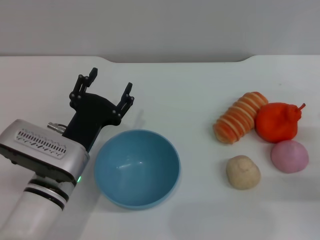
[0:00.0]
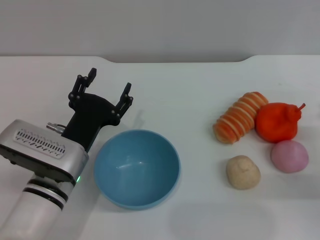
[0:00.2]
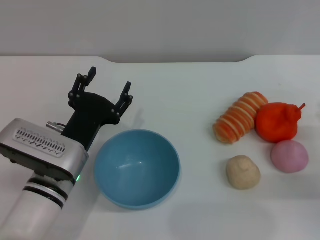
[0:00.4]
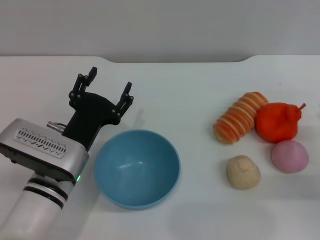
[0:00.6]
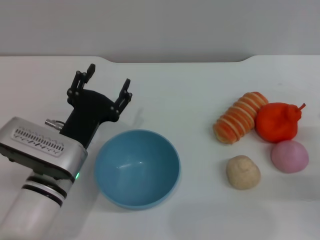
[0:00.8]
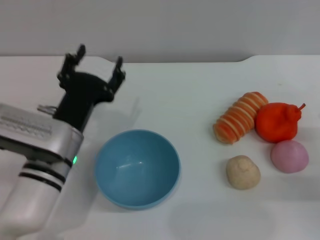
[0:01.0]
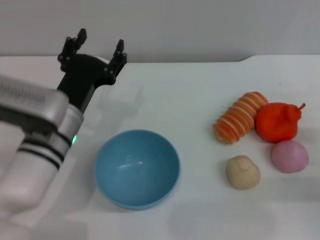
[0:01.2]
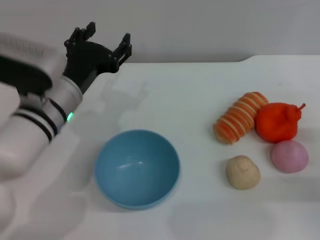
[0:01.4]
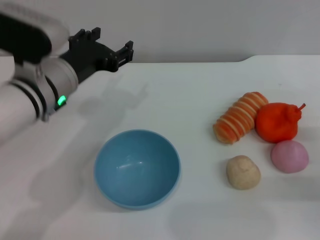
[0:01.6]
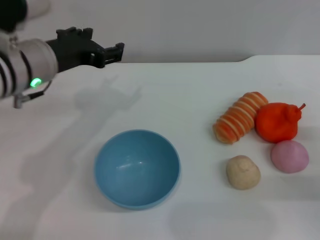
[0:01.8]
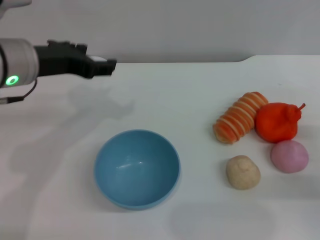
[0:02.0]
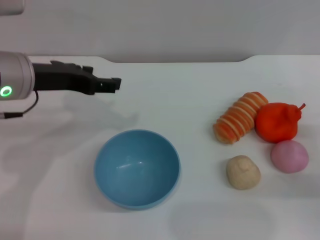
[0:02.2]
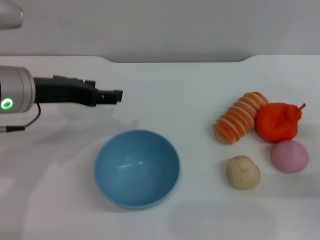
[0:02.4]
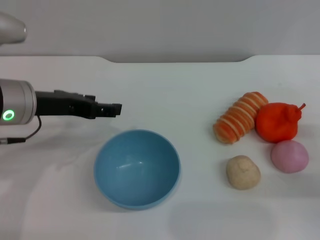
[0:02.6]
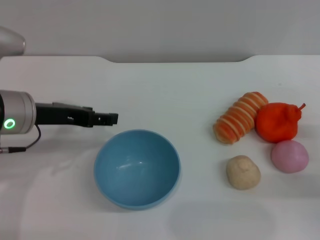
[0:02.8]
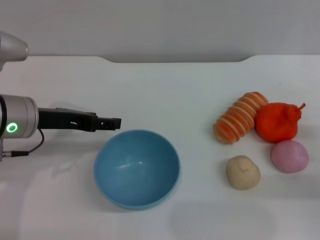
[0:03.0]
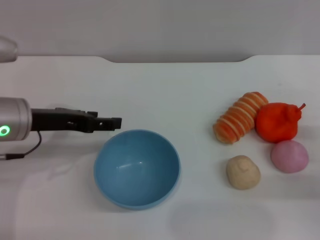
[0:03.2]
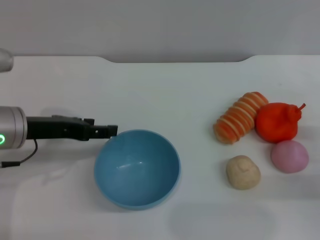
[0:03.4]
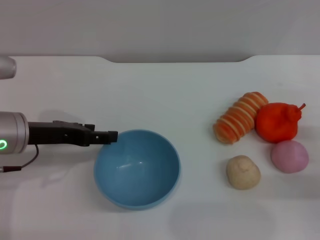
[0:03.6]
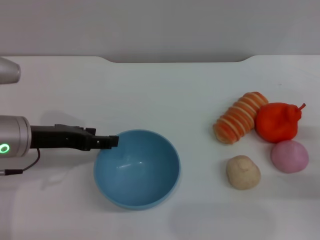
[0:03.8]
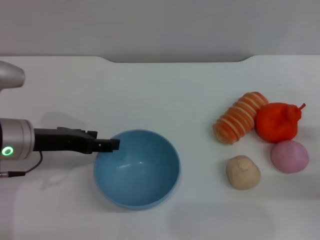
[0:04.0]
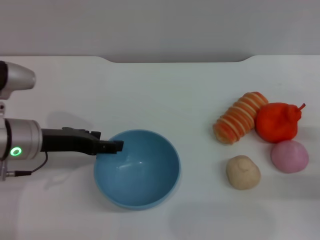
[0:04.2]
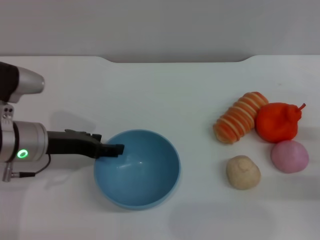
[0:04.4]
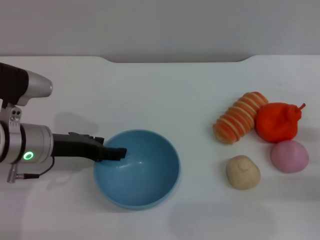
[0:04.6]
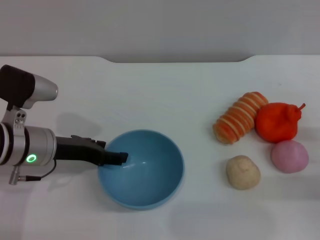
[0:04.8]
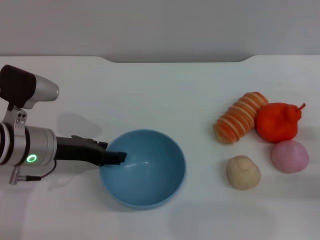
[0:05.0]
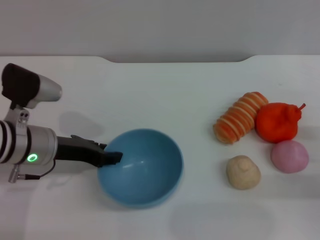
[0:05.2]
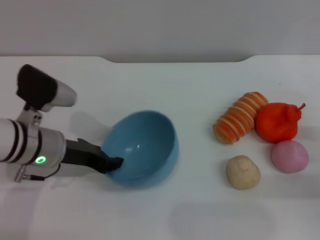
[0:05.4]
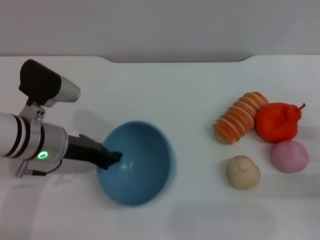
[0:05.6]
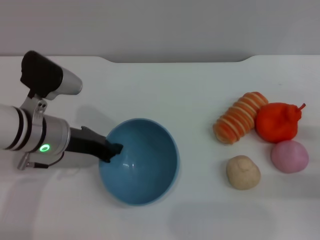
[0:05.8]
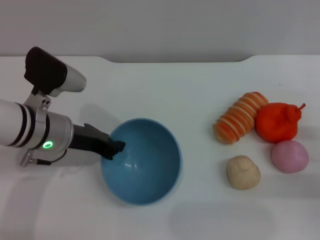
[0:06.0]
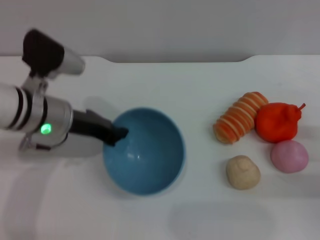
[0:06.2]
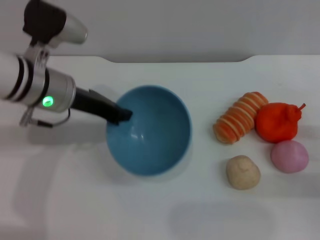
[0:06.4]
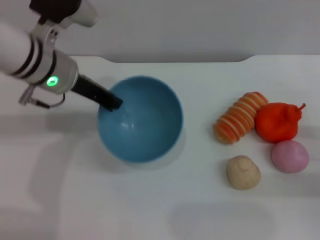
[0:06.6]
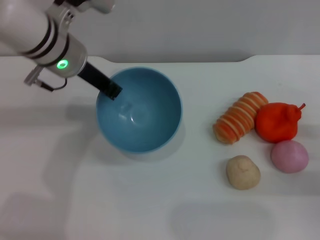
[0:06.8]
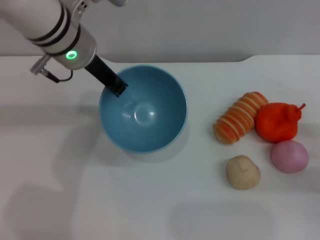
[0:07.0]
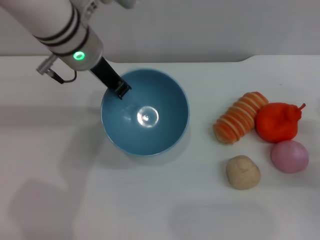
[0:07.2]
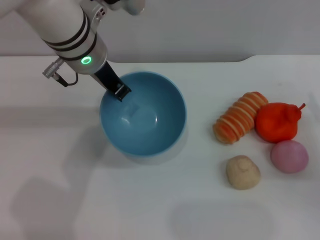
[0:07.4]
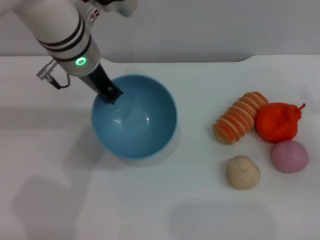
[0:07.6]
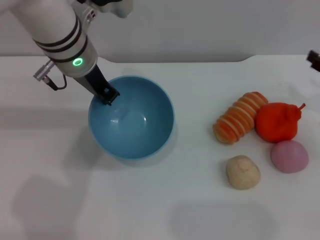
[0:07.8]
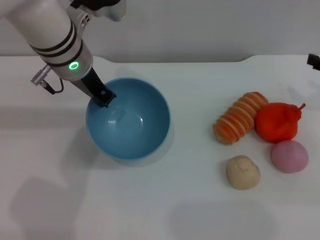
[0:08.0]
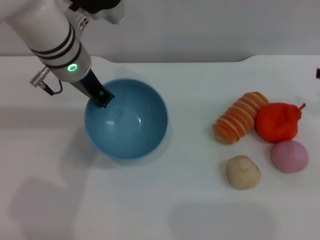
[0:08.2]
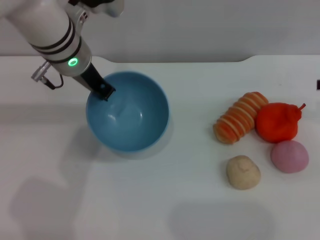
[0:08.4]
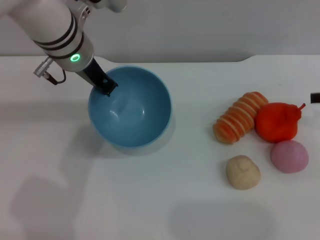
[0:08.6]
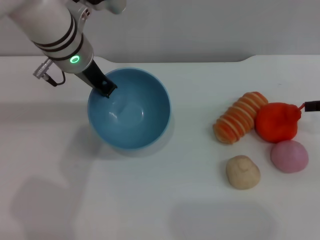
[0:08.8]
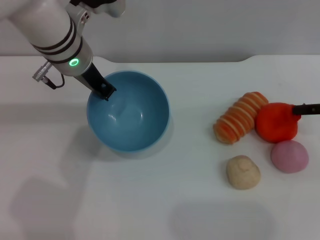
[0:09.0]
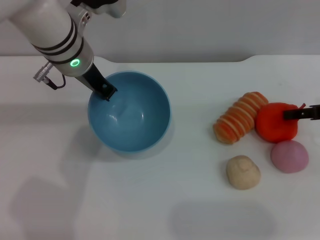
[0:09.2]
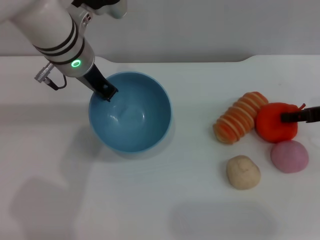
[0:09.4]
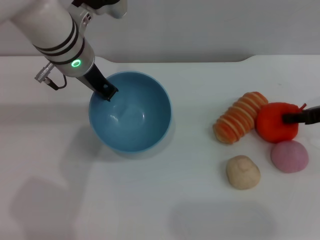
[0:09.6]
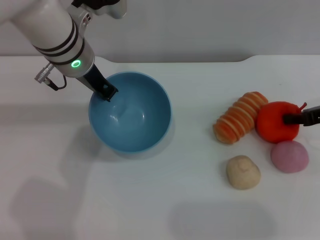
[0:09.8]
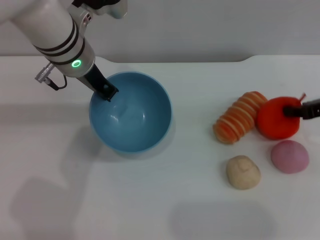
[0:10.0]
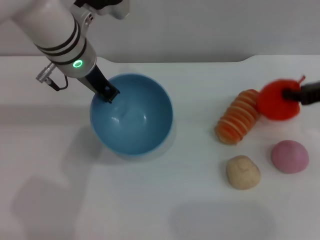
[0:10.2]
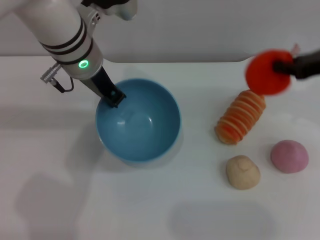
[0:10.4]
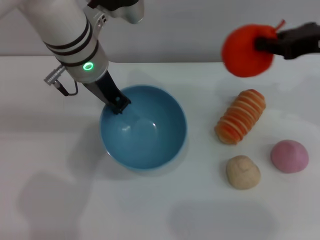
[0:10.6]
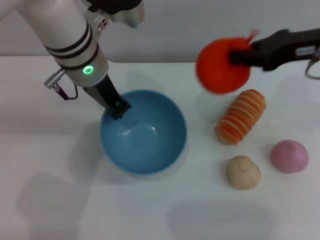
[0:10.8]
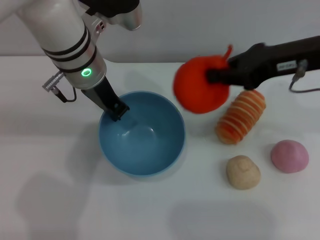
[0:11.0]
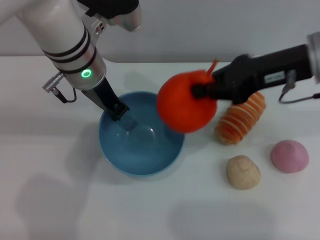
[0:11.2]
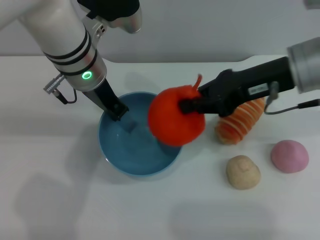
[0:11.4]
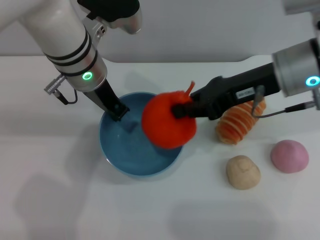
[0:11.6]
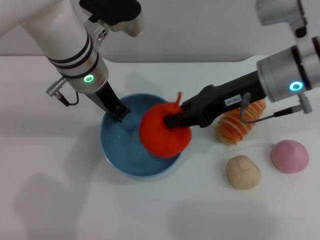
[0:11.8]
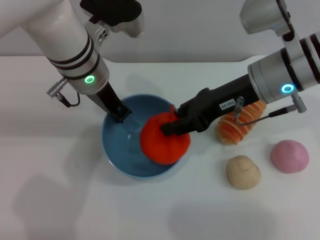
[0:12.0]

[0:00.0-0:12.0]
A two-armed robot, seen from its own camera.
Task of the whole recording: put the orange into the blue bowl and pour it out repeatedly.
Step, 0.0 to 6.8 s: Pick up the bowl with the left gripper.
Step, 7.0 to 10.2 s: Pick up the orange with the right gripper.
0.0 to 1.6 s: The left gripper heads upward and forward, covering some 15 cm.
1.6 to 3.0 s: The left gripper is displaced to the left by roughly 5 cm.
3.0 to 4.4 s: The grippers stay close to where they were, moving slightly.
4.4 to 6.0 s: The left gripper closes its fingers.
6.0 to 7.6 s: The left gripper is displaced upward, to the right and forward by roughly 15 cm, while the right gripper travels forward by some 5 cm.
7.6 to 9.0 s: The right gripper goes some 5 cm upward.
9.0 to 10.4 s: The right gripper moves upward and to the left, approximately 5 cm, and closes.
10.4 to 12.0 s: The right gripper goes roughly 15 cm to the left.

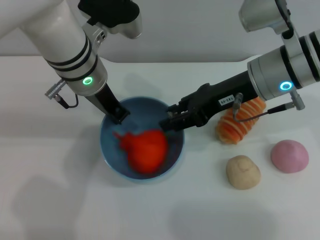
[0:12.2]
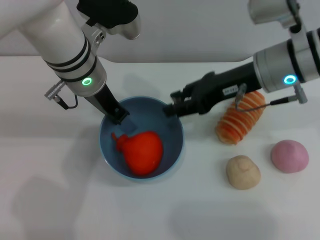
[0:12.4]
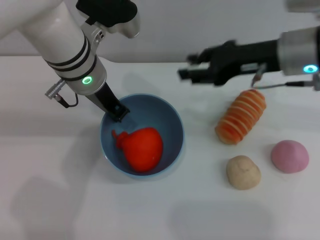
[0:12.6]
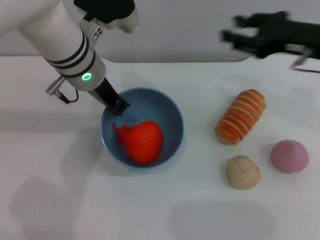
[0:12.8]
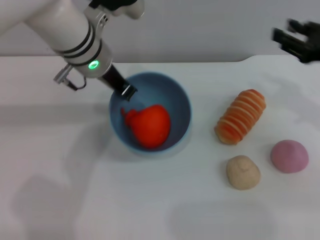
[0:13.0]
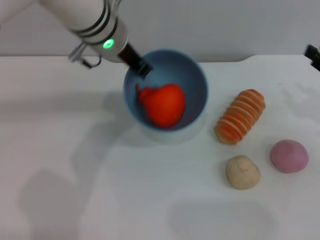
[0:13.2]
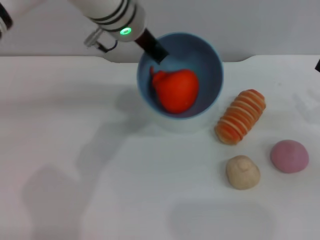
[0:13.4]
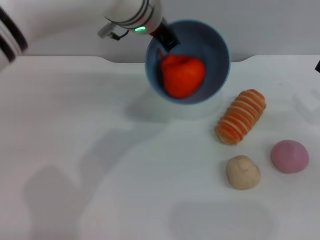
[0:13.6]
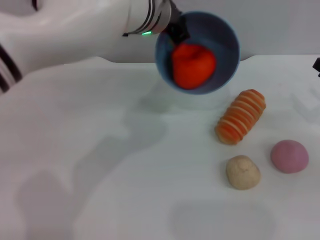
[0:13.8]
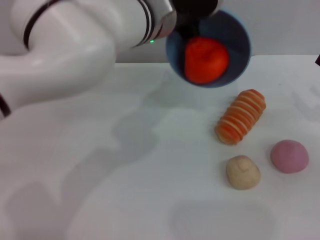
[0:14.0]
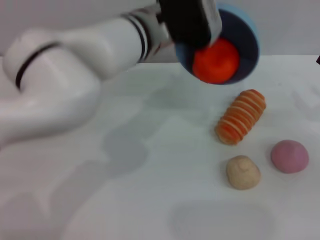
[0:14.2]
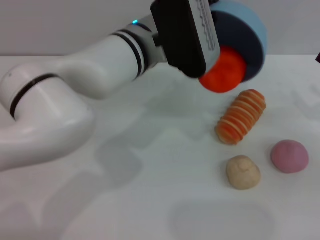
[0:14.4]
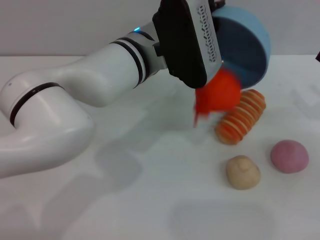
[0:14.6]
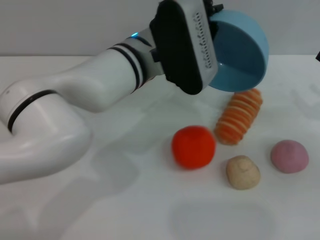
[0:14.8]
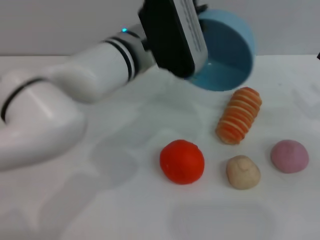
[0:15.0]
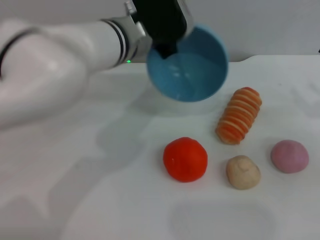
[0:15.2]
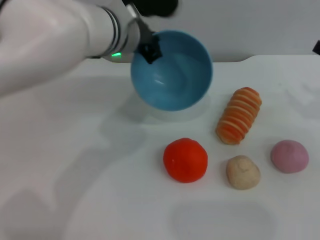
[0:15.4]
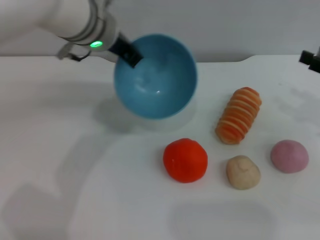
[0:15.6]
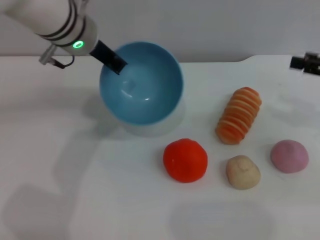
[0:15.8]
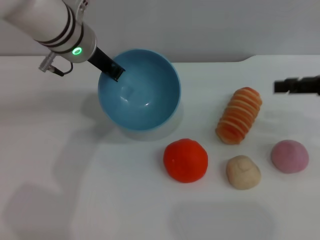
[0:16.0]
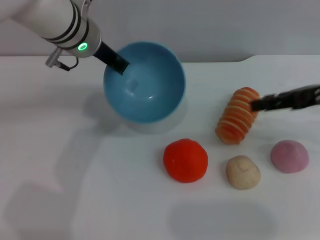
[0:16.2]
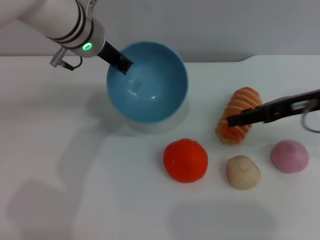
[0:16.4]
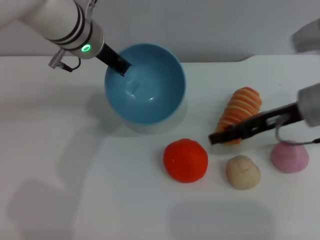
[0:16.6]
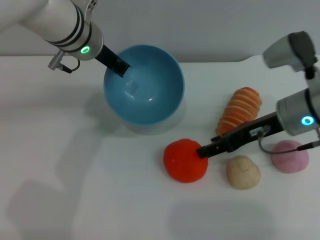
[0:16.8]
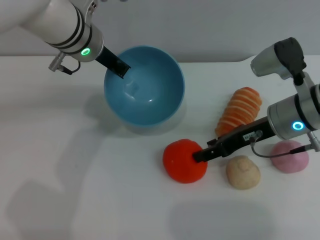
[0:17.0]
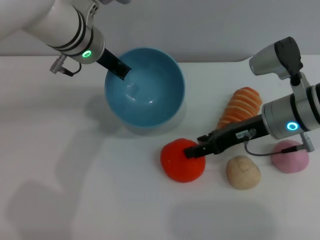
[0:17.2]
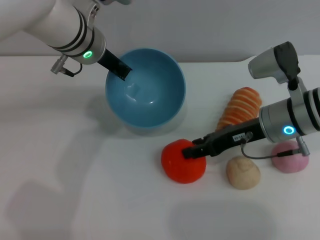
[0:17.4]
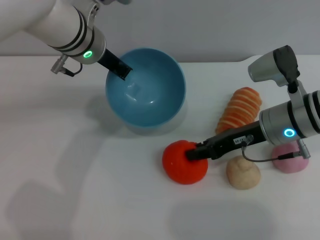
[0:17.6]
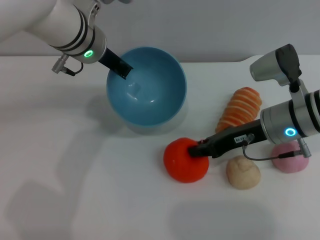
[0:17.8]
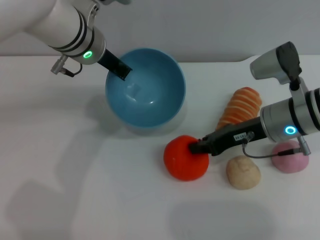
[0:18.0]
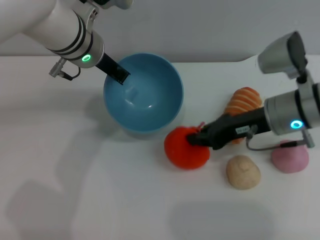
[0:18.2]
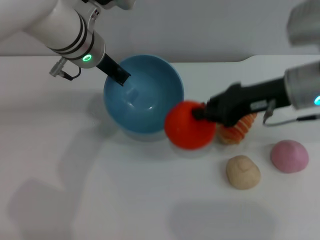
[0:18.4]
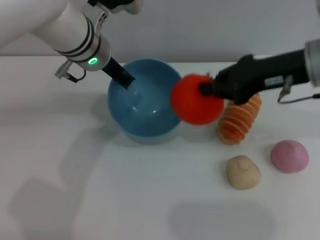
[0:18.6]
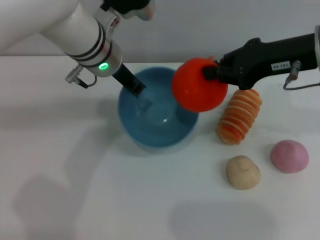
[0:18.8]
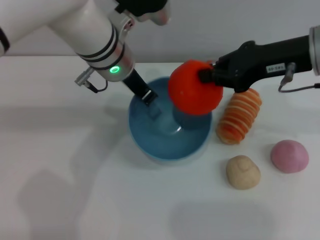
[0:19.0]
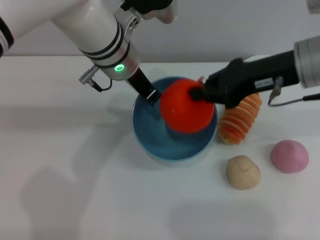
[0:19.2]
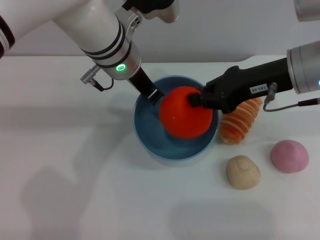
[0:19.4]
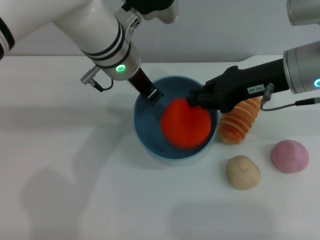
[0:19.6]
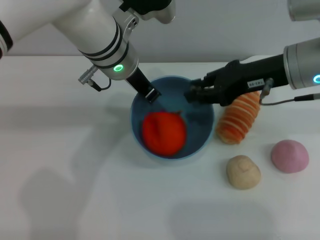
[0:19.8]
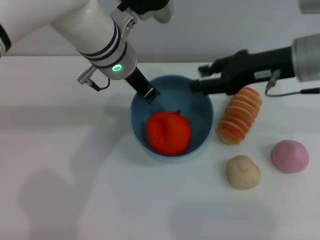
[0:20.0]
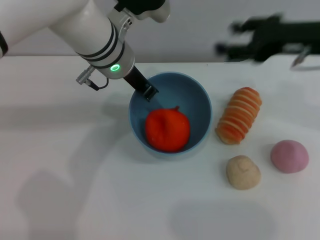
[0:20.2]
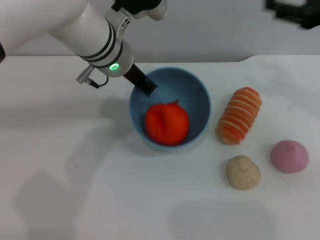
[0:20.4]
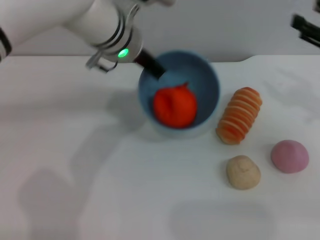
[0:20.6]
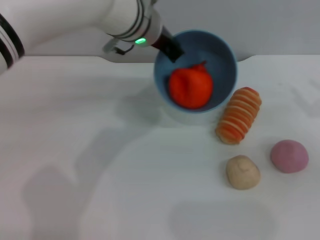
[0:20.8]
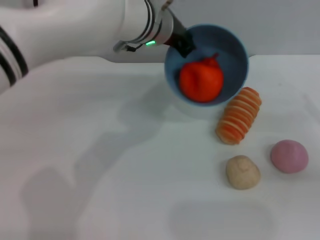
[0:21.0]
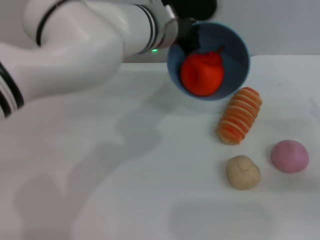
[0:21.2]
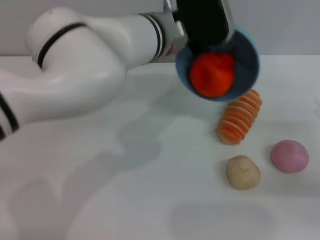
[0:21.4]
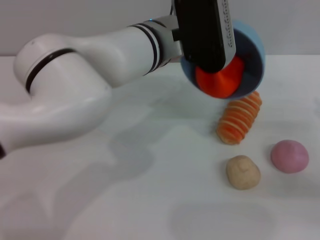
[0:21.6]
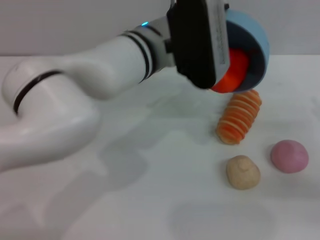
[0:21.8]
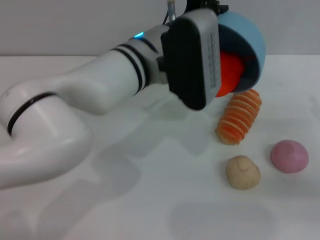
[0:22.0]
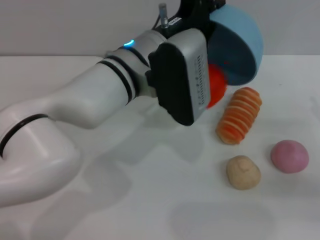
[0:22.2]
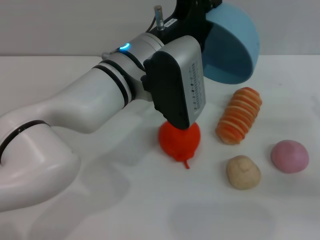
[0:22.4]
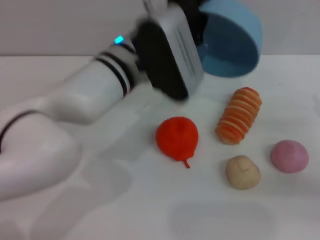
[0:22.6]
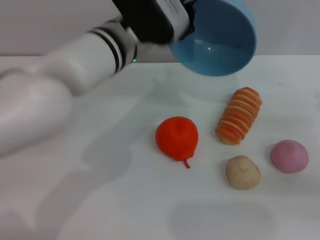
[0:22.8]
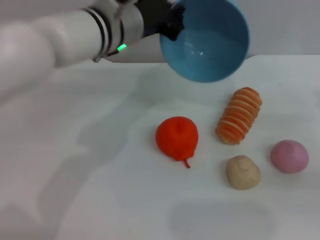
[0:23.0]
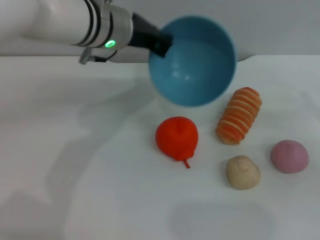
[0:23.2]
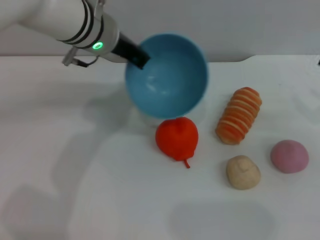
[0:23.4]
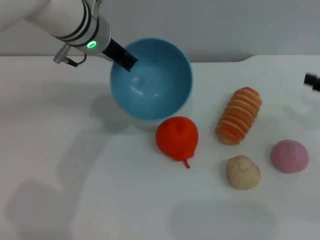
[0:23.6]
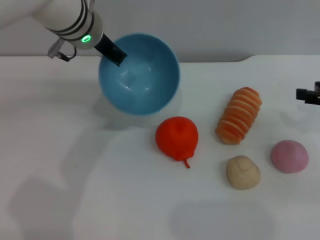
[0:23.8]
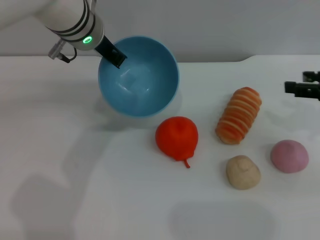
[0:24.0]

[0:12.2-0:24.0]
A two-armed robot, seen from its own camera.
Task of the whole recording: put the orange into the blue bowl and pour it out repeatedly.
Step, 12.6 to 15.2 s: Pour the orange out of the bowl.
Step, 15.4 to 18.4 s: Pick up the orange with the right gripper.
Step, 18.6 to 20.0 s: Place the orange into the bowl.
Step, 20.2 to 22.4 s: Pour the orange out of the bowl.
12.2 to 13.6 s: The right gripper shifts roughly 25 cm to the right and downward, while the left gripper goes approximately 5 cm to the right.
13.6 to 15.2 s: The left gripper changes place by roughly 5 cm.
15.2 to 16.6 s: The left gripper moves to the left, roughly 5 cm. Meanwhile the right gripper travels to the left and forward by about 15 cm.
16.6 to 18.2 s: The right gripper closes its fingers.
18.2 to 19.6 s: The left gripper is displaced to the right by approximately 5 cm; the right gripper shifts some 5 cm upward.
19.6 to 21.0 s: The right gripper shifts about 20 cm to the right, downward and backward, and opens.
21.0 to 22.6 s: The left gripper moves backward, approximately 5 cm.
22.6 to 24.0 s: The left gripper shifts roughly 10 cm forward and to the left. Meanwhile the right gripper goes roughly 10 cm upward and forward.
